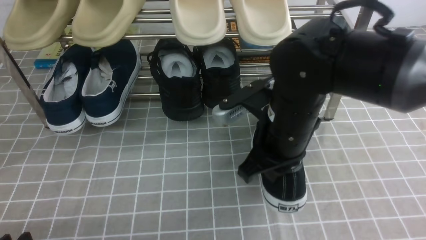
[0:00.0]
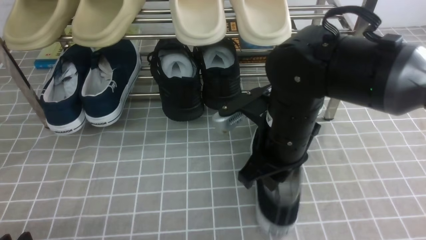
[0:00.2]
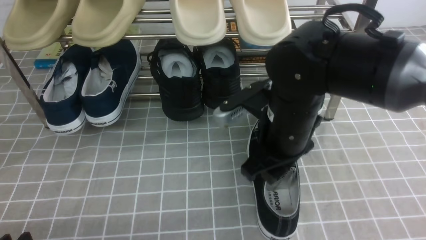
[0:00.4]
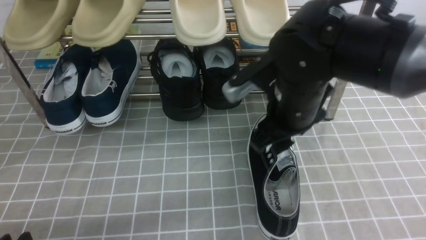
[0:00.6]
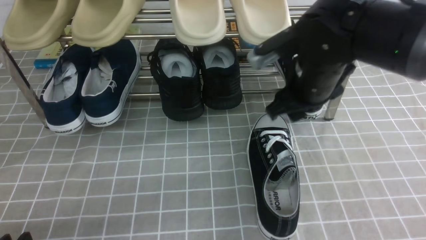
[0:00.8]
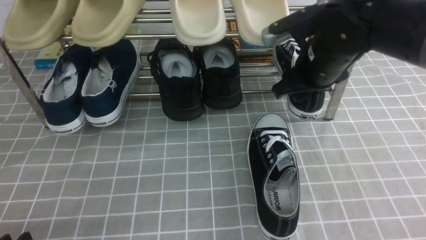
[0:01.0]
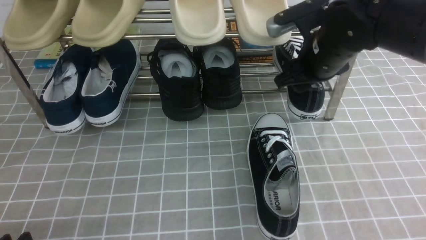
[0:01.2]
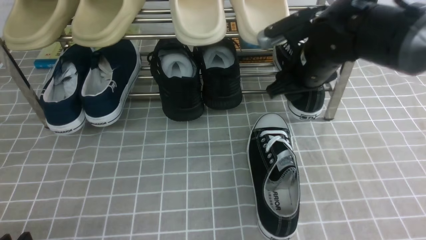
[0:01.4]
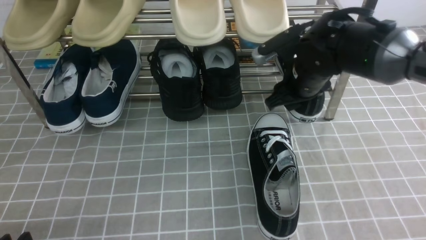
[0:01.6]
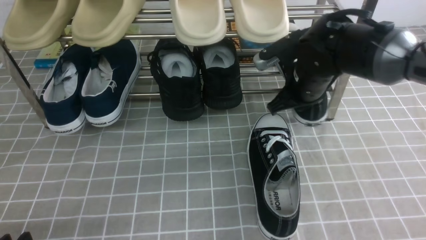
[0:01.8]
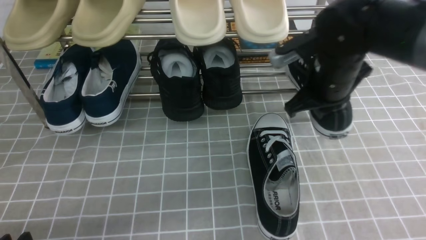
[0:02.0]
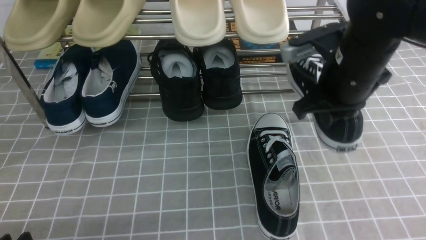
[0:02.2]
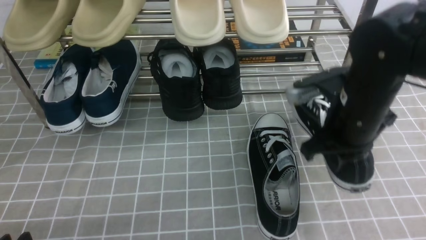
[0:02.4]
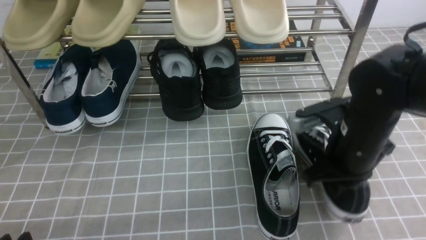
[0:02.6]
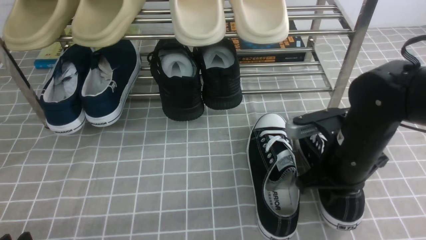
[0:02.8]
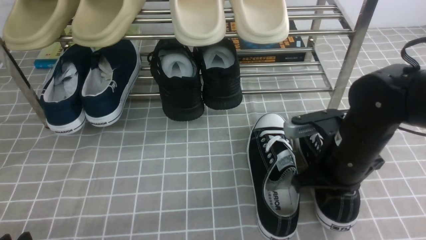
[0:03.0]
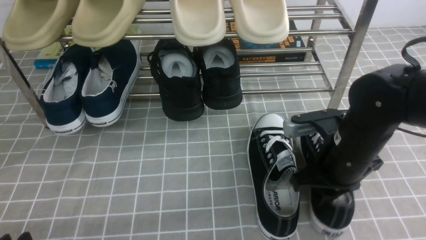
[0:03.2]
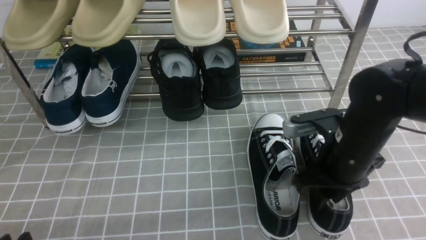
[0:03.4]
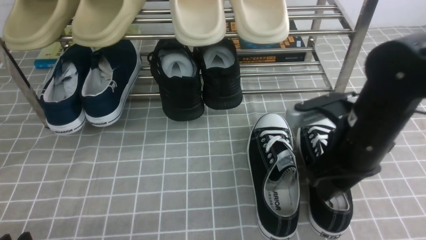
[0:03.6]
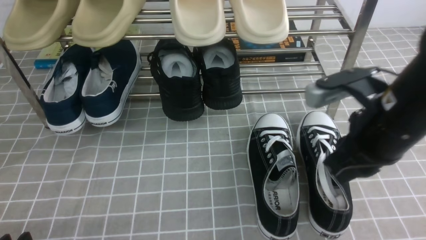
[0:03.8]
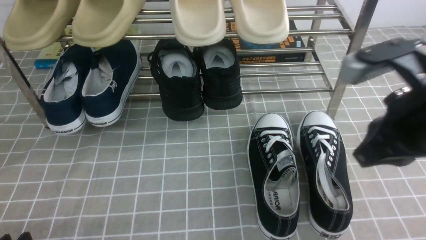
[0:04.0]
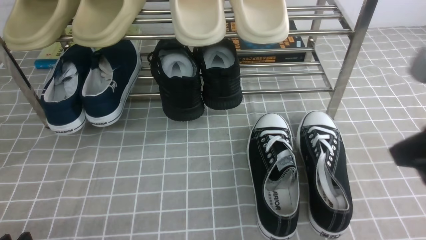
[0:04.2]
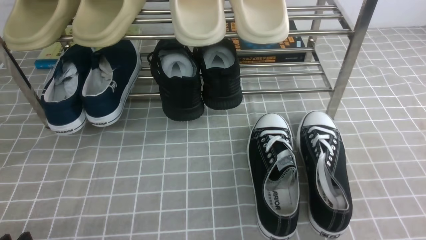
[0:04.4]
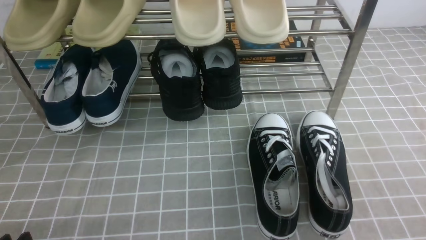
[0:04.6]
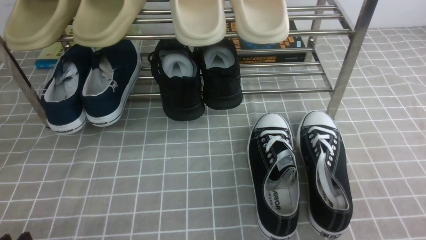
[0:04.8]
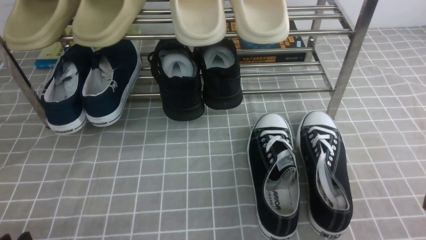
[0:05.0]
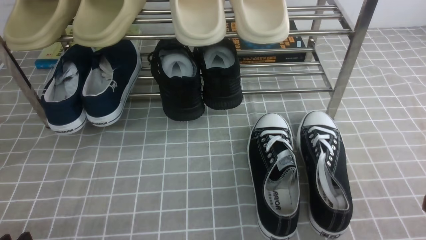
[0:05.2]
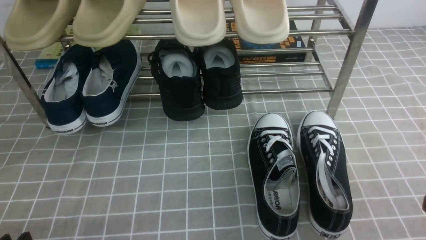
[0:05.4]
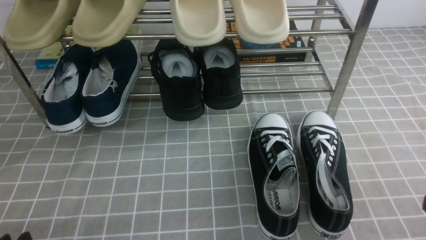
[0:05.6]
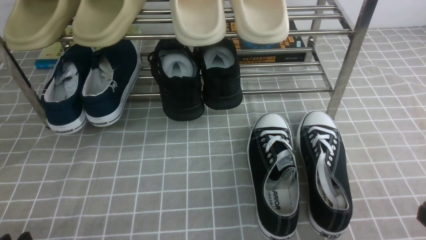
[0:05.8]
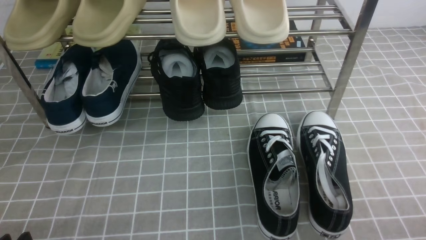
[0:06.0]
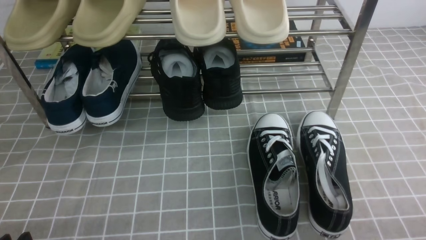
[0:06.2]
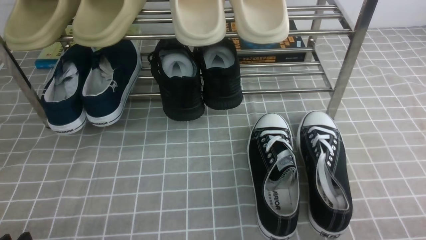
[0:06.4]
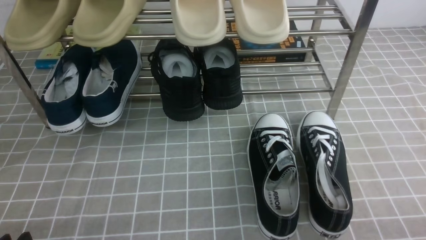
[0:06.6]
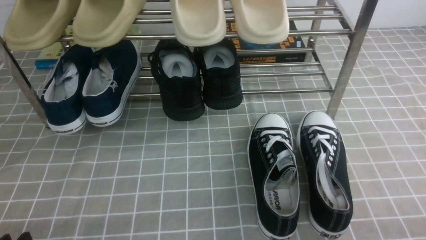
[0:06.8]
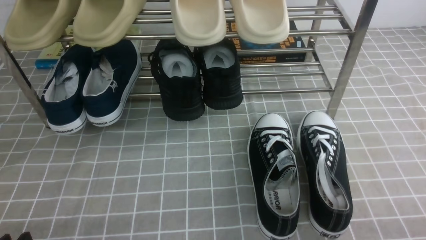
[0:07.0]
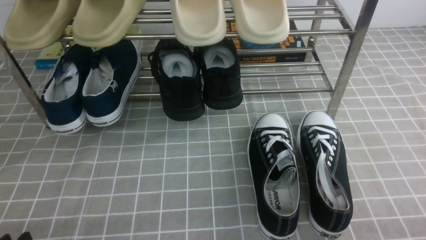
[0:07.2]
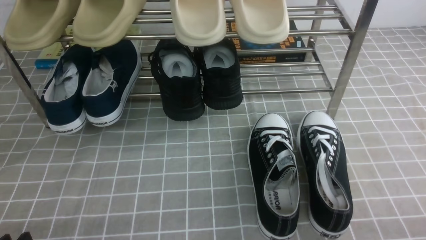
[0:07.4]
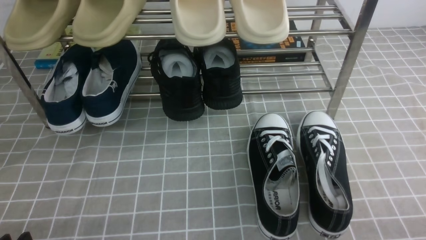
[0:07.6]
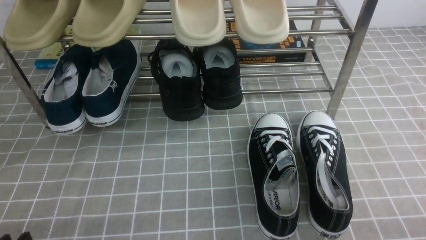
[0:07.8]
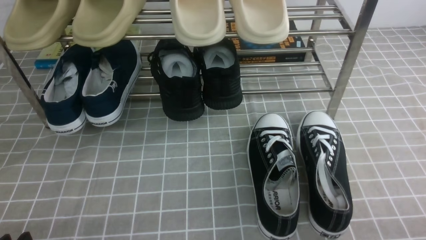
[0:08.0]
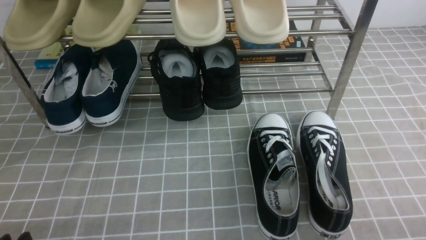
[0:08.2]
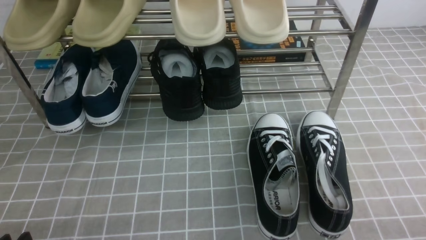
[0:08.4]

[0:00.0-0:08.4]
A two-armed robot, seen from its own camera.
Step, 0:00.6 to 0:01.8: use the right arm to clamp a shoe on the right side of the shoe rack.
Step, 0:02.0 to 0:03.0: use the right arm to take out the clamped shoe from the shoe rack and put it down.
0:00.0 to 0:01.4: The right gripper moves forward and to the right, about 15 cm, and opens up.
0:01.4 to 0:02.8: The right gripper heads backward and downward, covering some 15 cm, and closes its fingers.
0:02.8 to 0:04.2: The right gripper goes roughly 20 cm upward, backward and to the right, and opens, then closes once more.
0:04.2 to 0:05.6: The right gripper is displaced downward, backward and to the right by some 15 cm.
0:07.0 to 0:08.4: Both grippers stay put.
